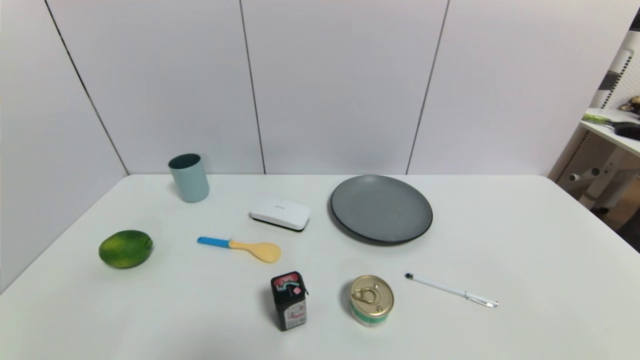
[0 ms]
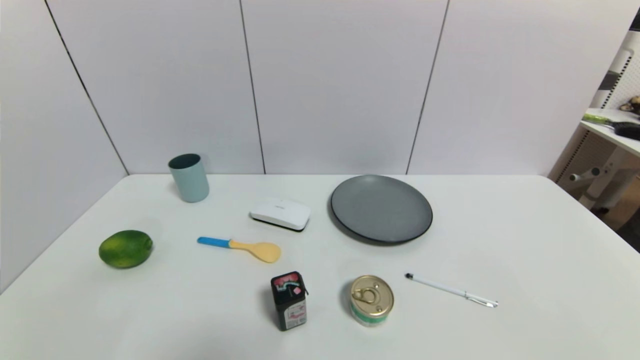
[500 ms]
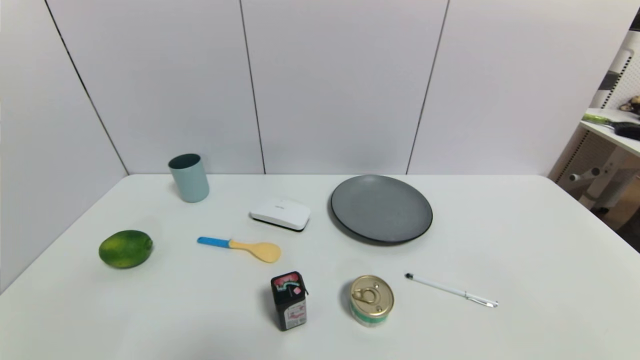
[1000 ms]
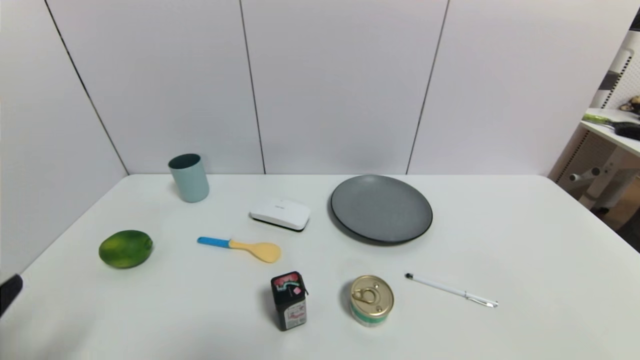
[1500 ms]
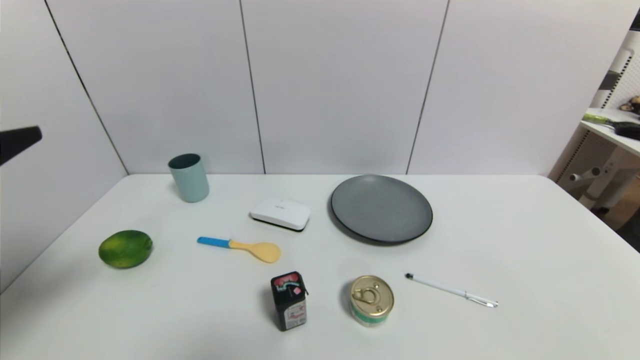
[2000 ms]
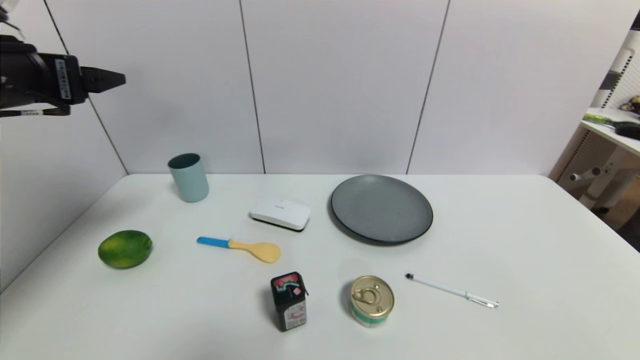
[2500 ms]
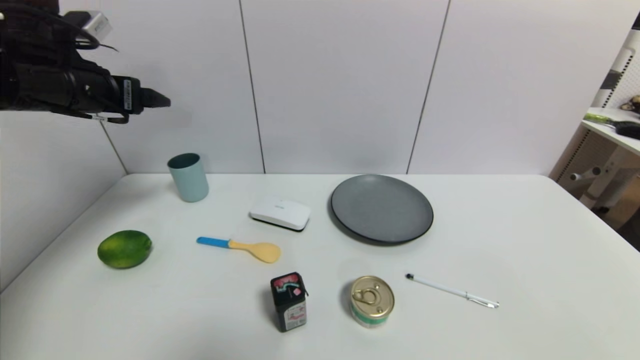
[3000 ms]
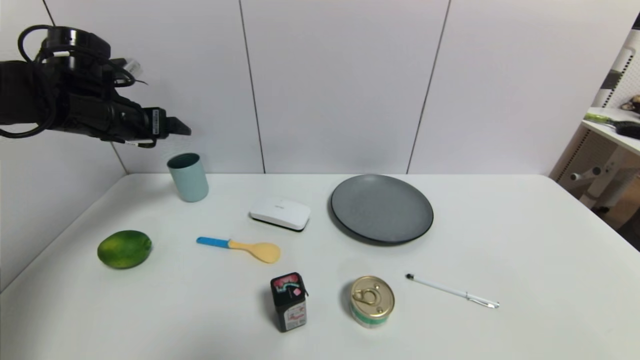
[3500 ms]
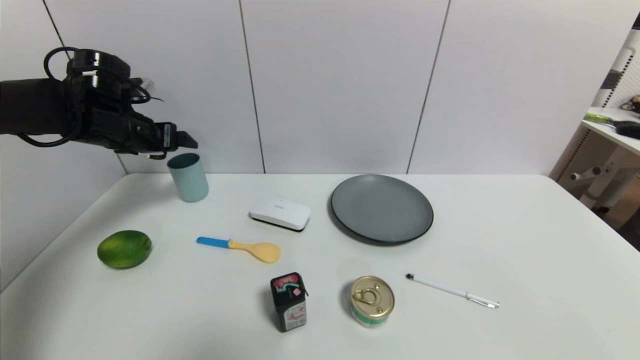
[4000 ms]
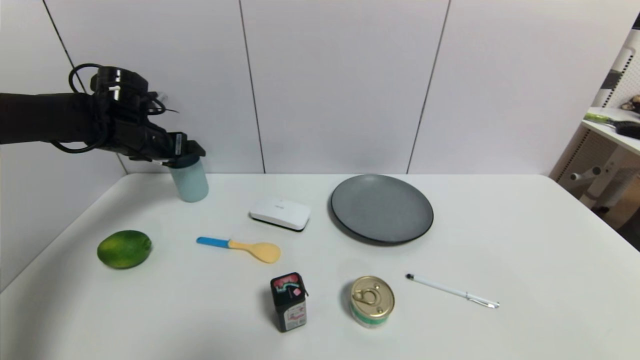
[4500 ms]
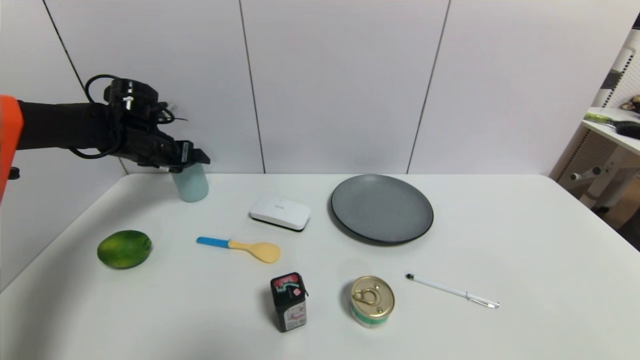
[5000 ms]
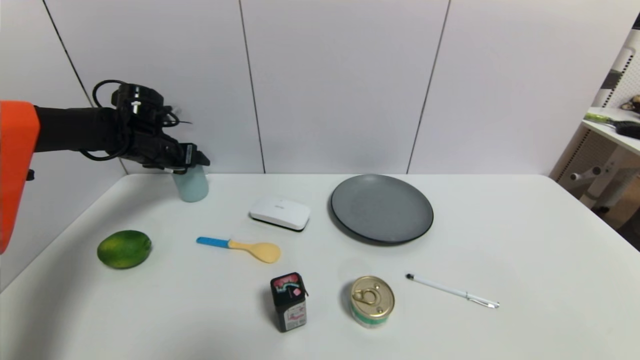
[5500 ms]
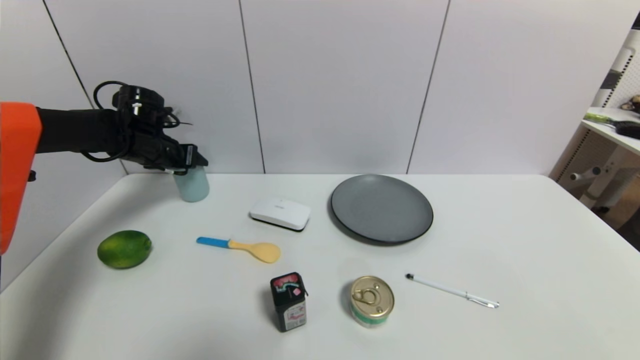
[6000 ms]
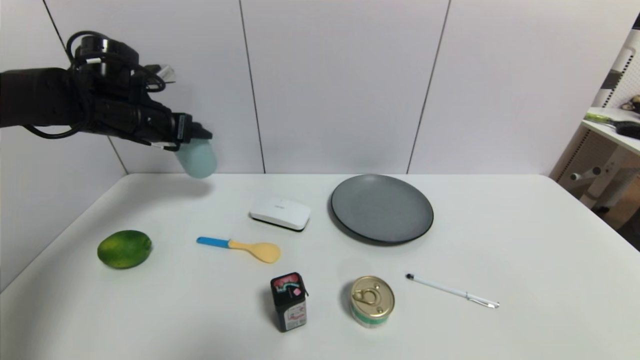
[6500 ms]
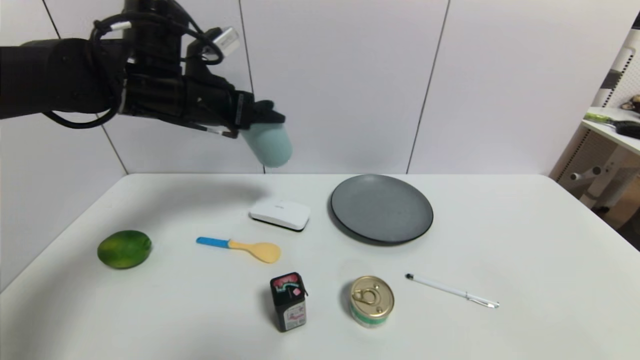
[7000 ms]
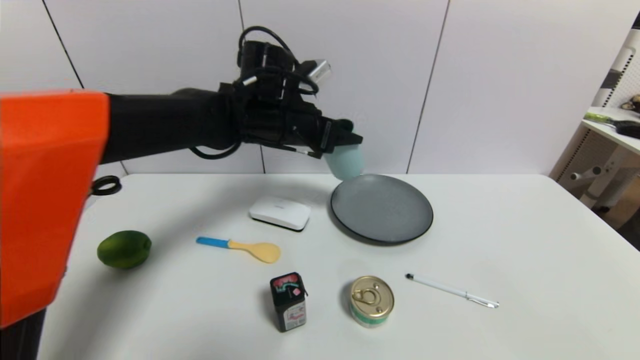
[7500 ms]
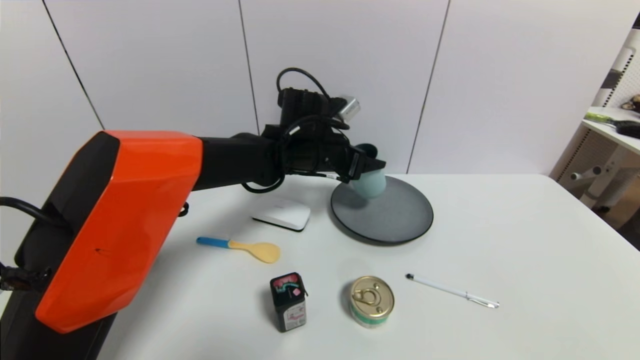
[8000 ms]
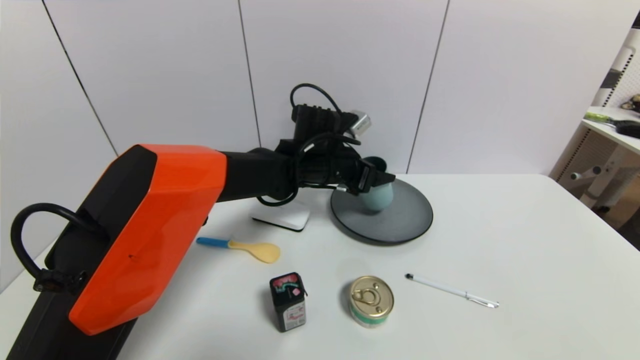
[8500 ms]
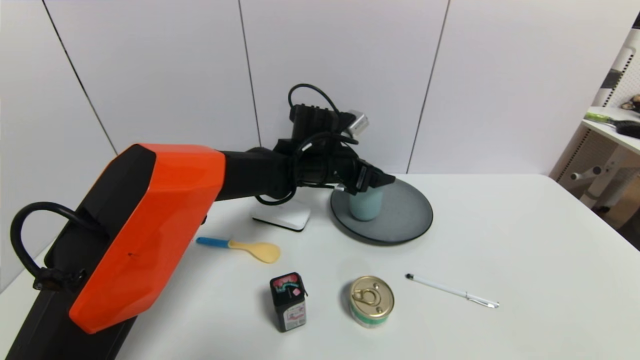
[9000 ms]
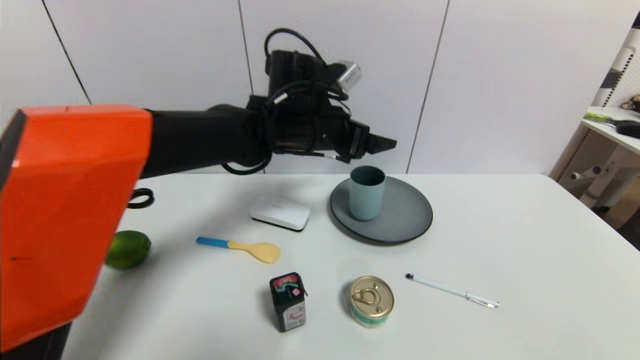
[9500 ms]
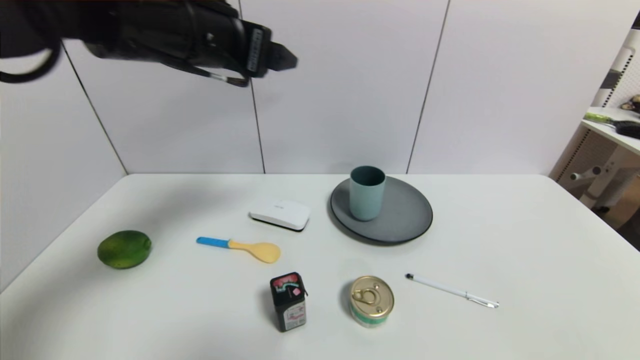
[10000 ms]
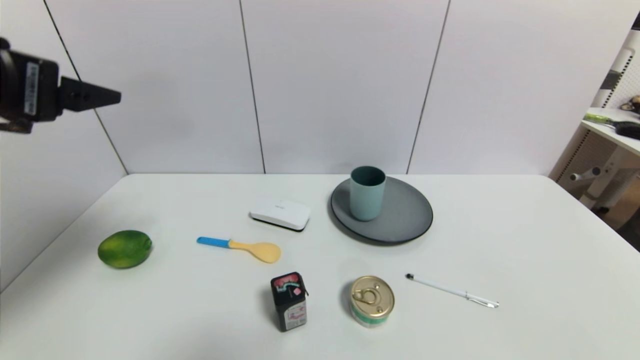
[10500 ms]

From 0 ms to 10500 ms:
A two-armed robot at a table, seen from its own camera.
Task of the whole recording: use a gripper to pick the target object and place on the gray plate.
Step, from 0 ms to 5500 ms: Grasp the blue cup with the left gripper.
Step, from 6000 ms to 9500 ms: Place the blue cup on the gray plate with the left gripper.
From 0 ms to 2000 ms: The left gripper goes some 25 cm upward and forward.
From 2000 ms to 4000 ms: The left gripper shifts some 30 cm forward.
From 4000 ms to 6500 ms: The left gripper moves about 5 cm downward and comes back, and closes its fingers.
From 6500 ms to 8500 ms: The left gripper travels to the right by about 30 cm.
From 8500 ms to 10500 ms: The left gripper heads to the left, backward and upward, covering some 40 cm, and opens up.

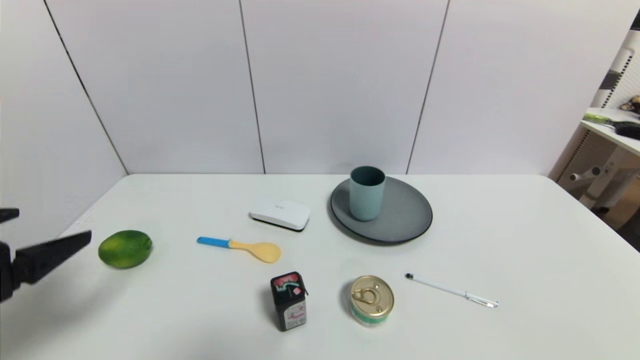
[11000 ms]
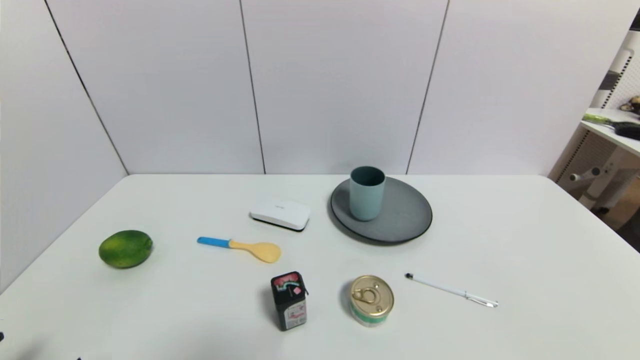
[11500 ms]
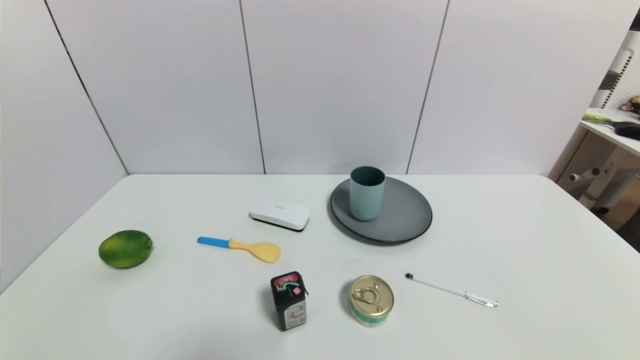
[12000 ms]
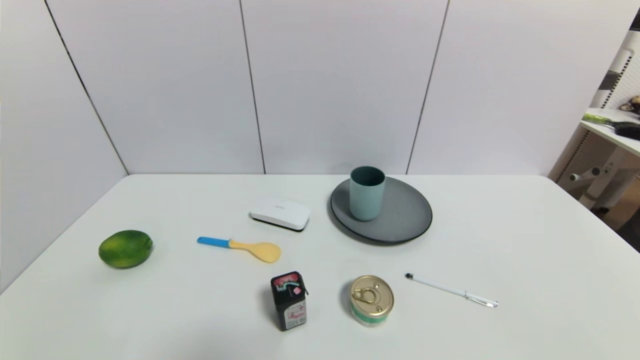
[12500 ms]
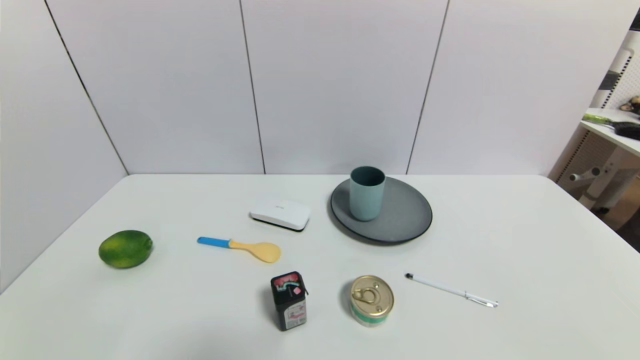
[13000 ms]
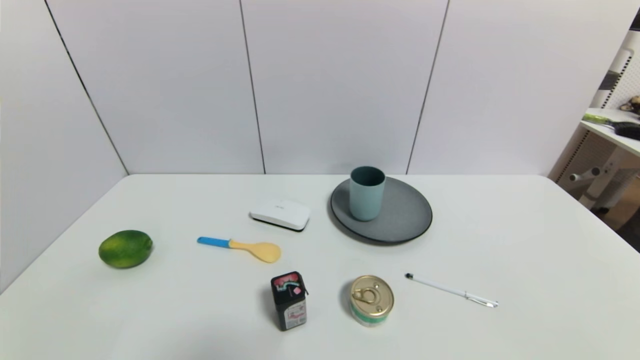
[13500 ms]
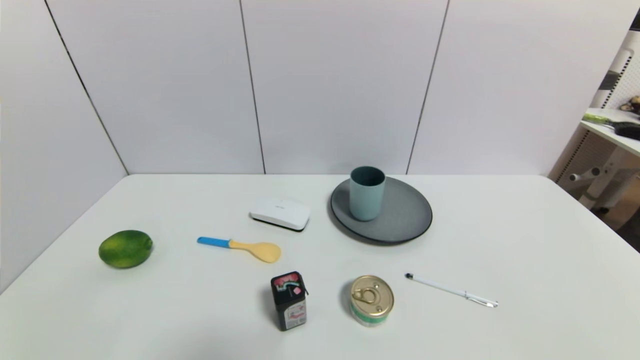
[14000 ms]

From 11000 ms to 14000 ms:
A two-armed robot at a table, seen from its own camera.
Task of the whole recording: use a gripper to pick the target object and place on the gray plate.
From 11000 ms to 12500 ms: The left gripper goes some 20 cm downward and backward.

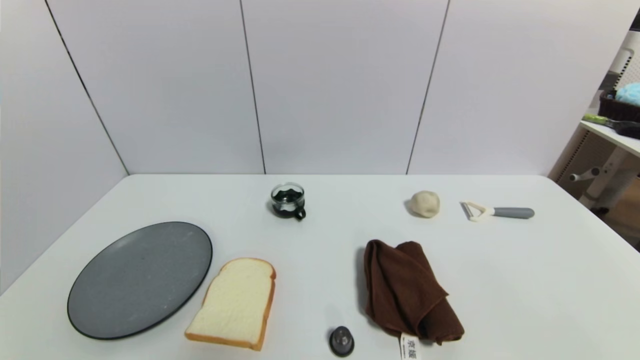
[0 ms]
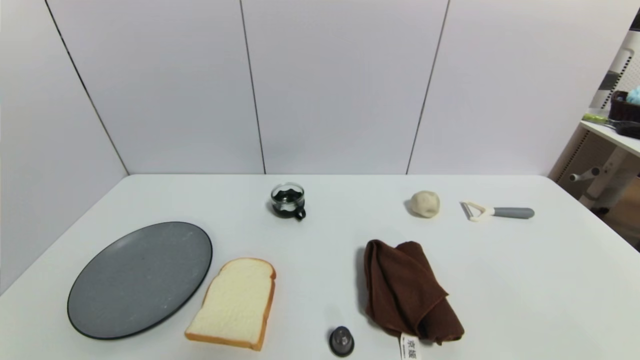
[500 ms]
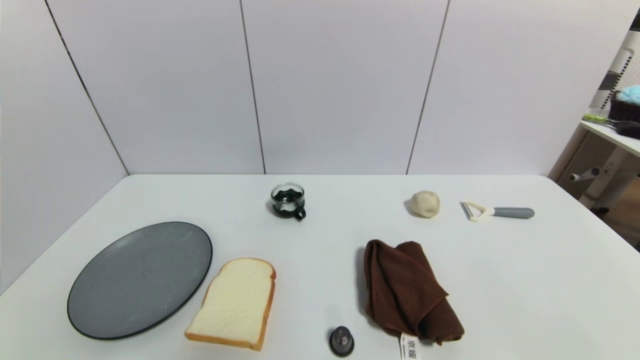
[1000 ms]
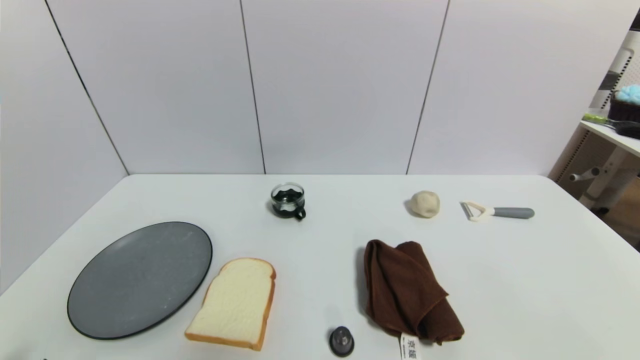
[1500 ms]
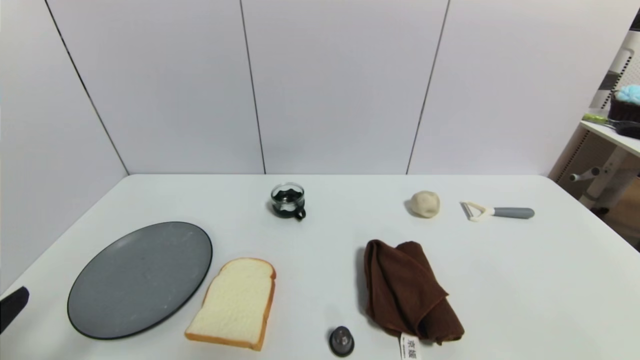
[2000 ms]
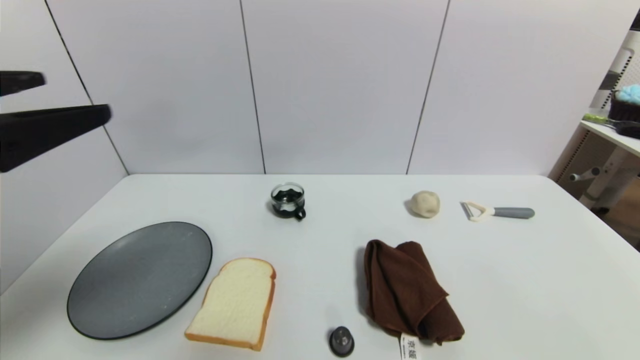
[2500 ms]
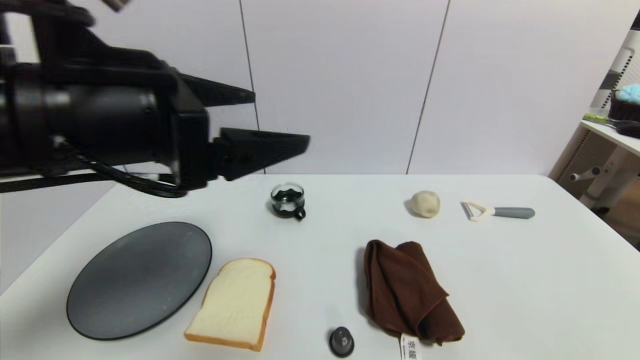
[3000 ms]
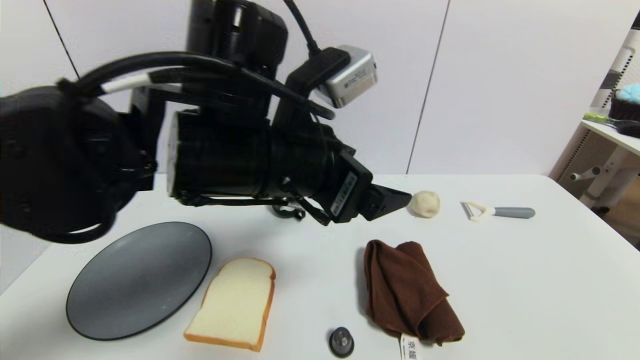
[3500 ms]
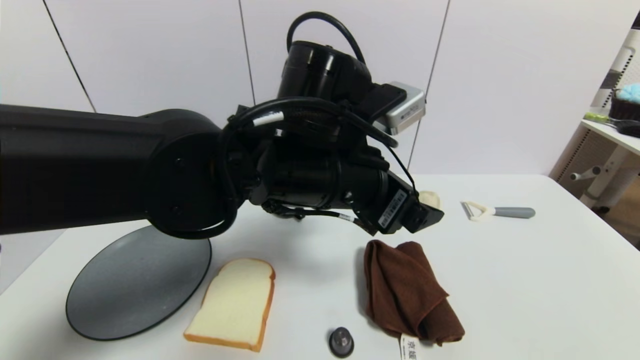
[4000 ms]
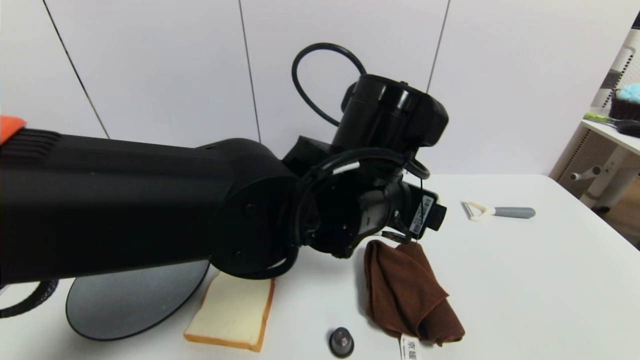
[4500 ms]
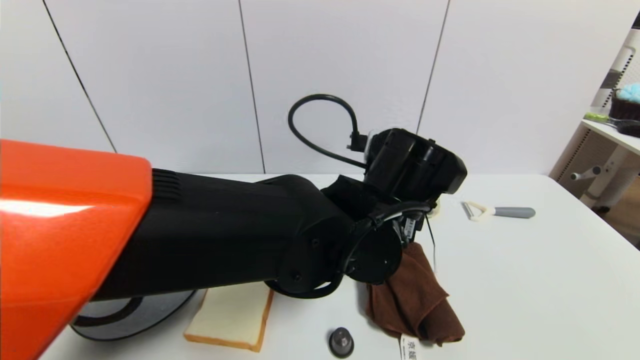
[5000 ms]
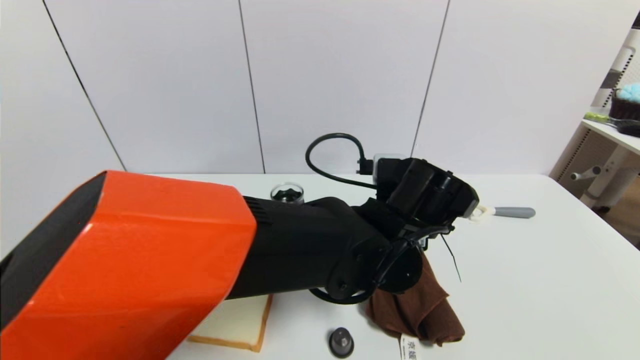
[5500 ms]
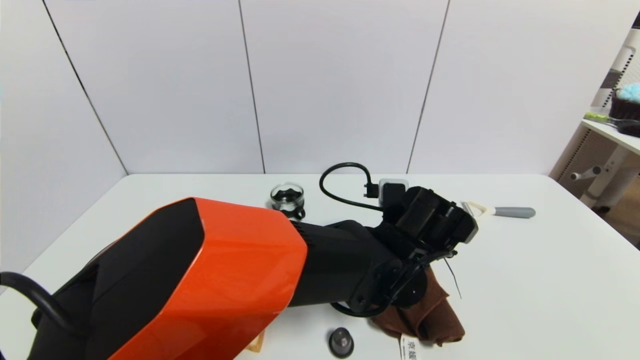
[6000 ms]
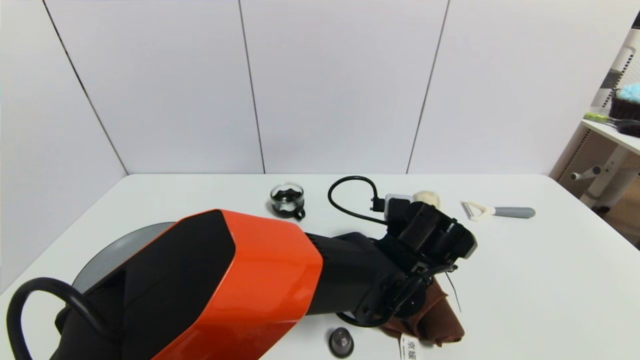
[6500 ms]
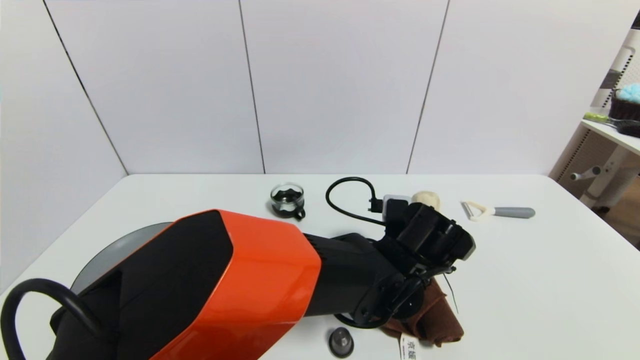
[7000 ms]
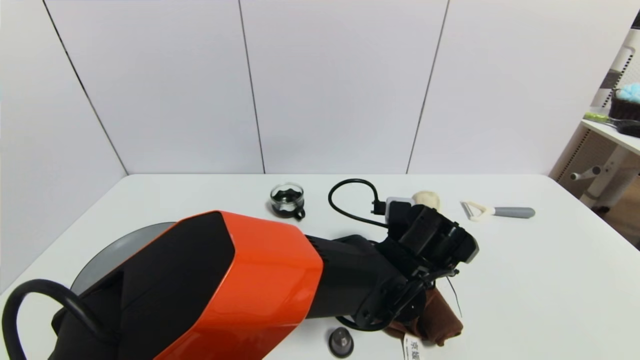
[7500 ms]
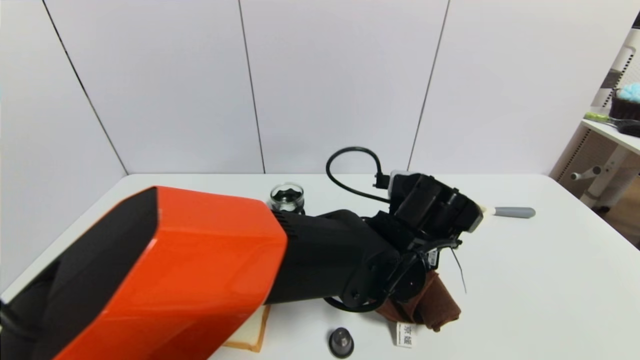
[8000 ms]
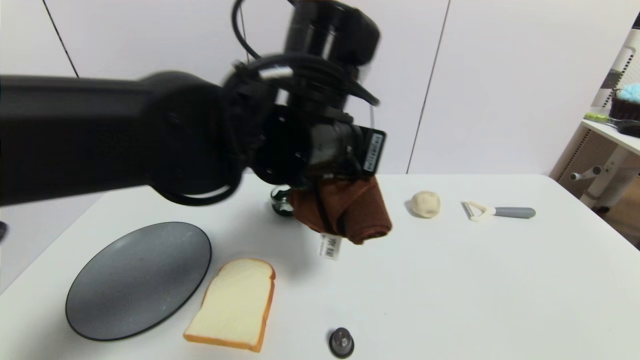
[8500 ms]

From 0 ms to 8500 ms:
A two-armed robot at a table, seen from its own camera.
Task of the whole recording: use a gripper to pick the target object and place on the gray plate.
Step, from 0 ms to 7500 ms: Grasp the brown towel with the left gripper.
From 0 ms to 2000 ms: The left gripper travels upward by about 15 cm.
From 2000 ms to 4000 ms: The left gripper is displaced to the right and forward by about 35 cm.
From 4000 ms to 6500 ms: The left gripper is displaced downward and to the right by approximately 20 cm.
From 6500 ms to 8500 ms: The left gripper travels upward and to the left by about 25 cm, and closes up.
